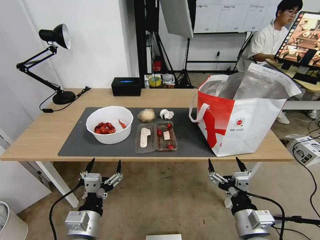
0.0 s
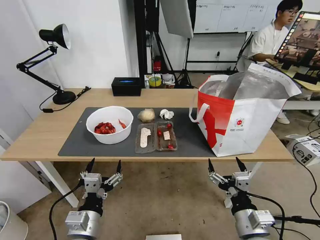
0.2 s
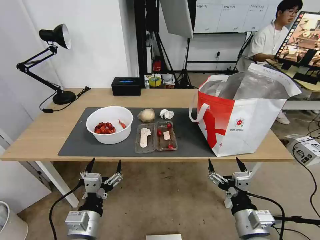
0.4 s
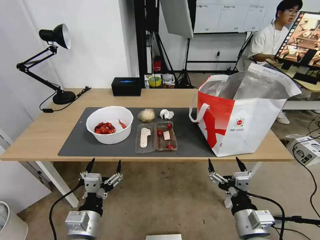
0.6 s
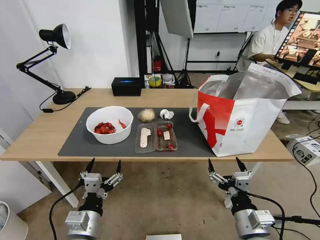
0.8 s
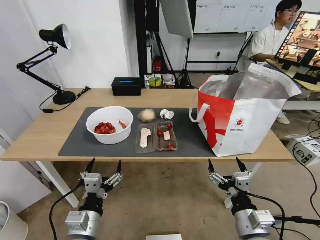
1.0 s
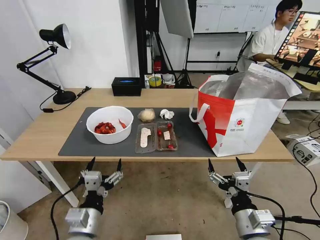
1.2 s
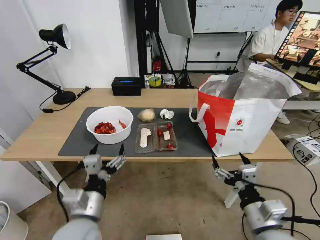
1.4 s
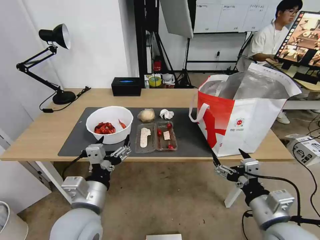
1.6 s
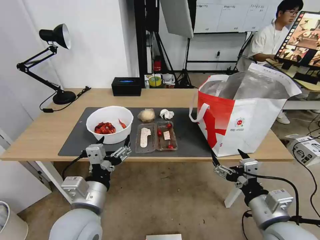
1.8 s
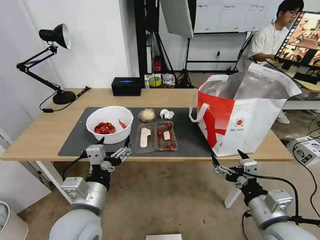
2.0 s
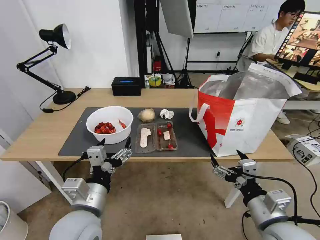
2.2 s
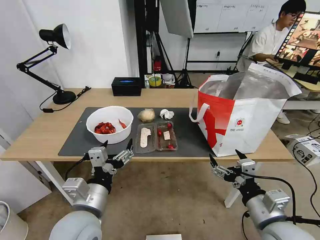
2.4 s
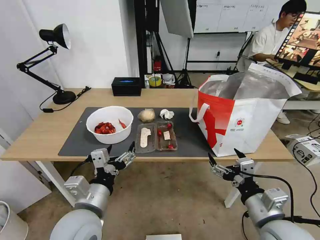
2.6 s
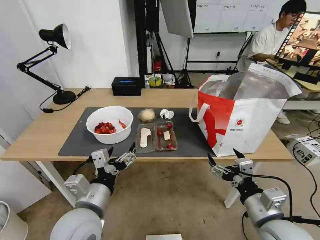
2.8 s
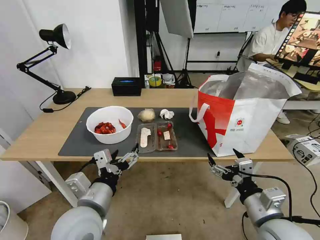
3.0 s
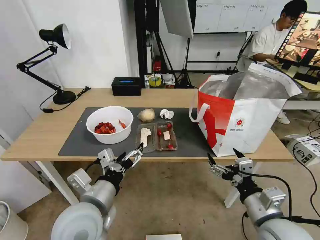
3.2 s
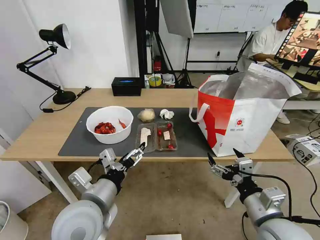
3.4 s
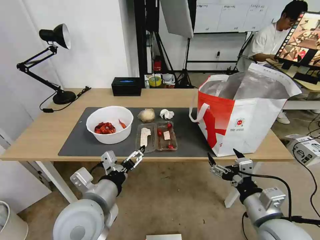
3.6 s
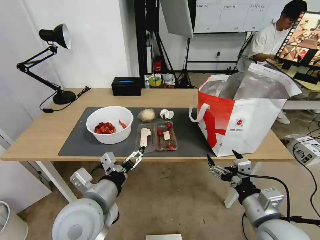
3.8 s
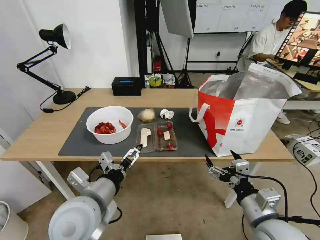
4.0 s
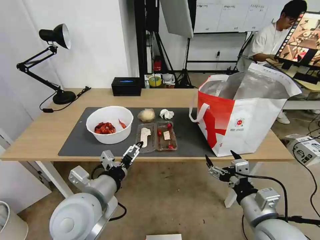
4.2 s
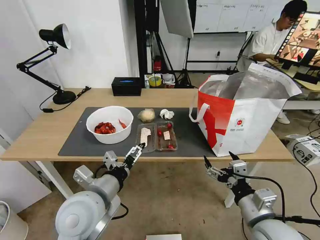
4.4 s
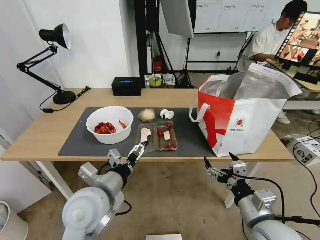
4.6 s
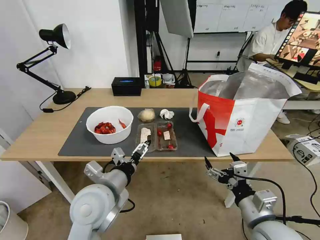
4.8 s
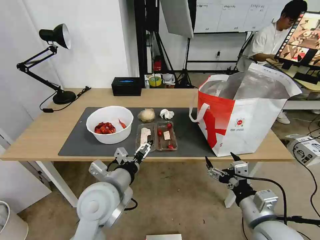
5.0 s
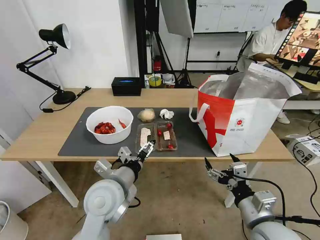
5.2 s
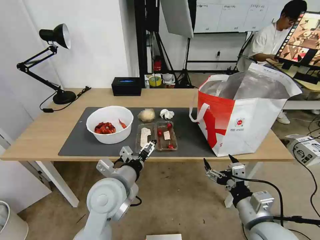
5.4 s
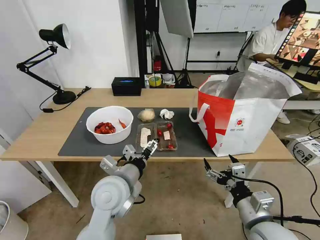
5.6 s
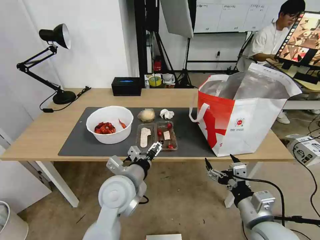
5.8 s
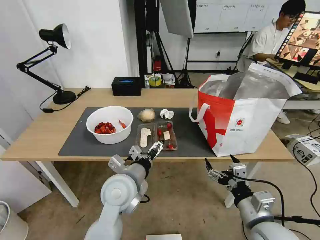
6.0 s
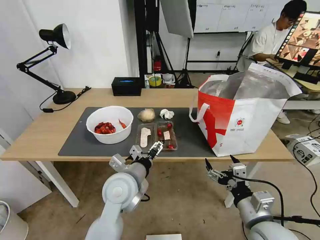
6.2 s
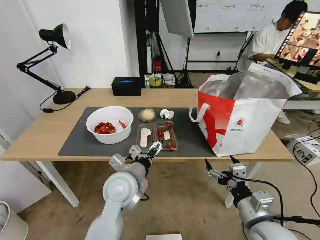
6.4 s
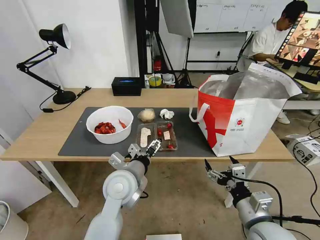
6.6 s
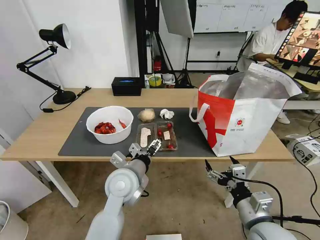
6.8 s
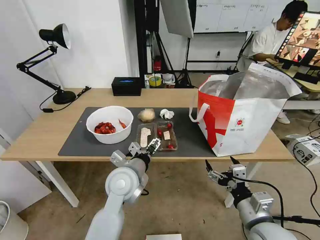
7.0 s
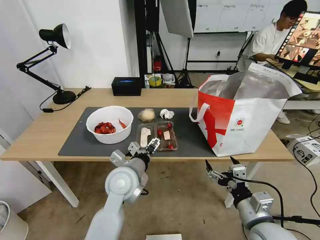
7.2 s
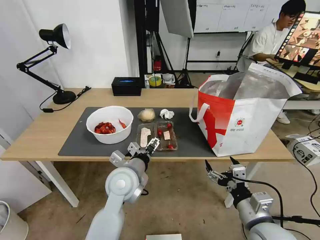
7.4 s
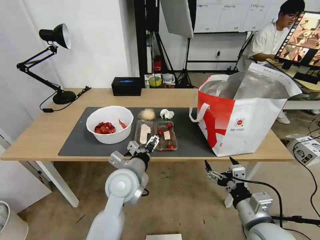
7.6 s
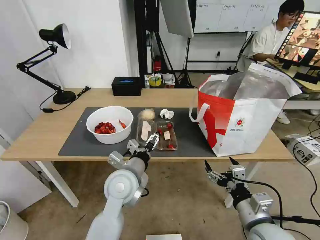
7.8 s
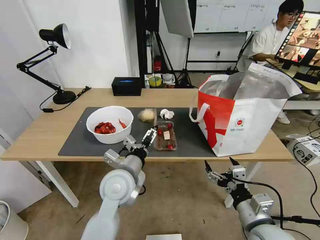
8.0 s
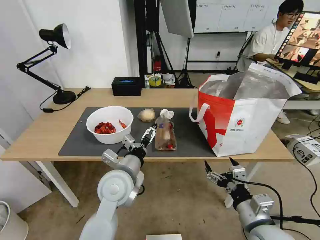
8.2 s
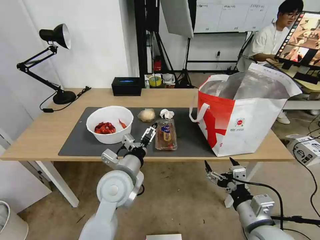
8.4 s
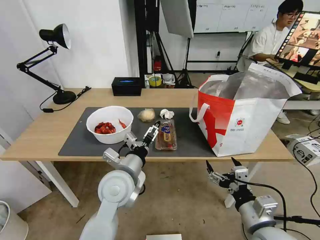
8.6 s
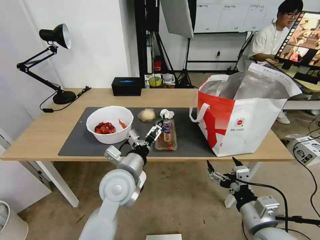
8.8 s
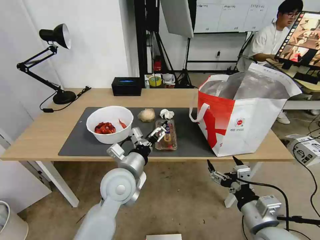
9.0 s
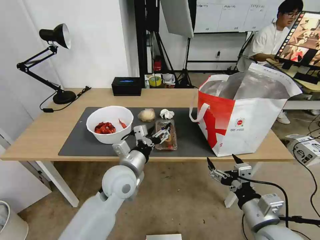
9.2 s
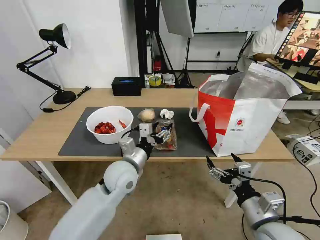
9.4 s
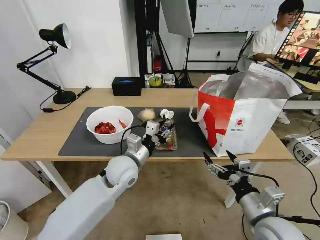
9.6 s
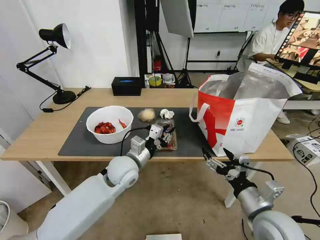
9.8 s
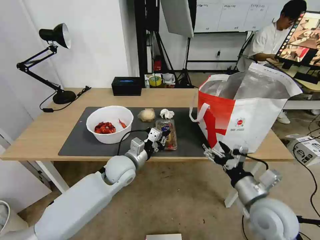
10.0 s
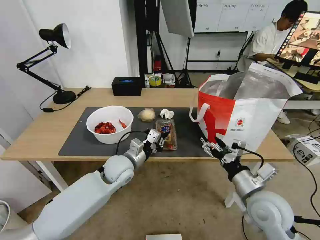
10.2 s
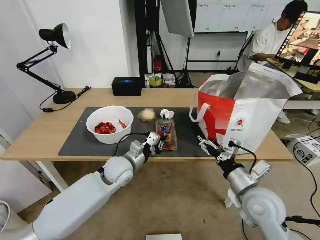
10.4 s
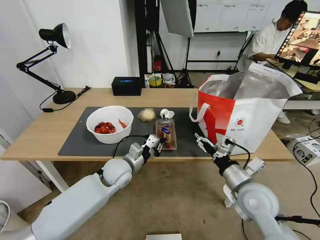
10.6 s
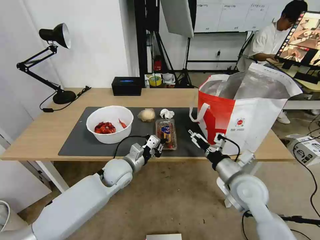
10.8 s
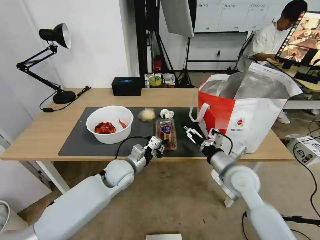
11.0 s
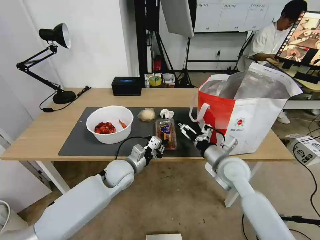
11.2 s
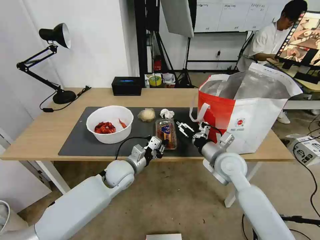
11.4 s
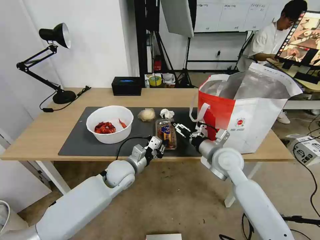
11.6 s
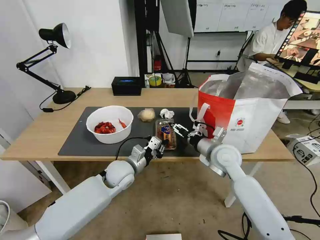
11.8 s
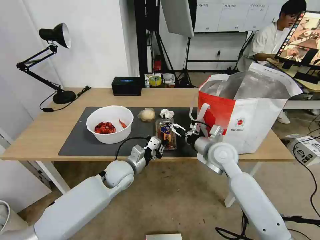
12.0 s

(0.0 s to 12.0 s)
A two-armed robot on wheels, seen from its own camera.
Task of the whole recording: Pick up the trash from the table and place it into the takeout bag.
4.4 s - 6.0 s: The left gripper goes some 10 cm forward and to the right.
6.0 s - 7.6 s: The grippers make only small movements.
9.0 s - 10.4 s: The right gripper is displaced forward by approximately 10 cm, while the left gripper goes roughly 10 cm forward and downward, and closes up.
10.4 s - 12.0 s: The right gripper is displaced forward and to the left by approximately 15 cm.

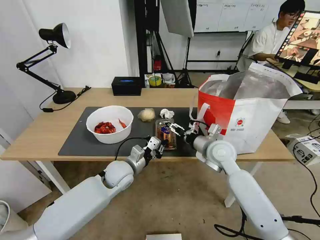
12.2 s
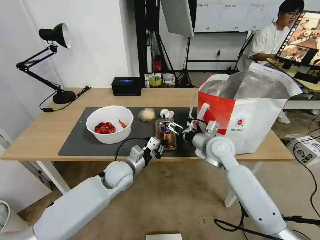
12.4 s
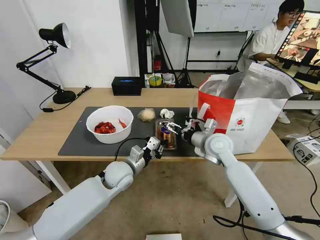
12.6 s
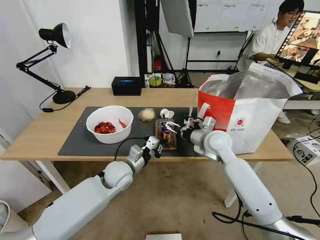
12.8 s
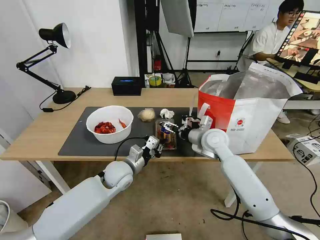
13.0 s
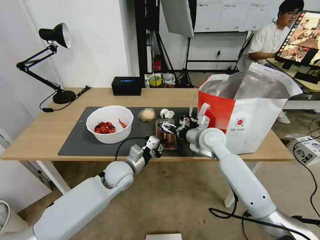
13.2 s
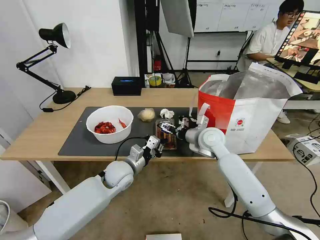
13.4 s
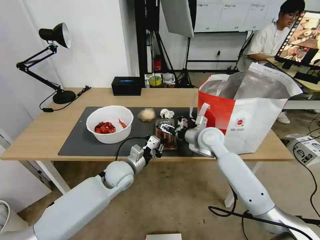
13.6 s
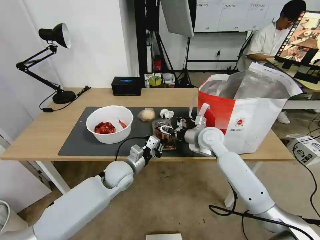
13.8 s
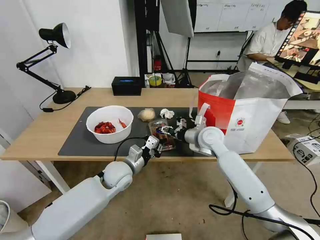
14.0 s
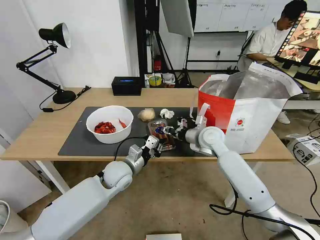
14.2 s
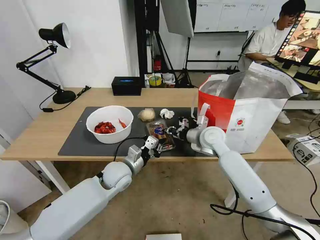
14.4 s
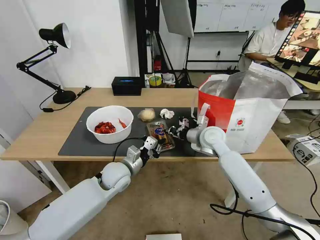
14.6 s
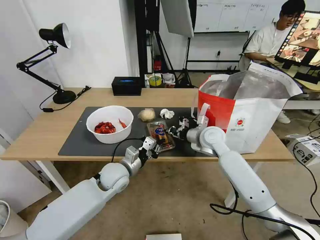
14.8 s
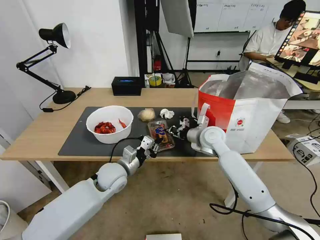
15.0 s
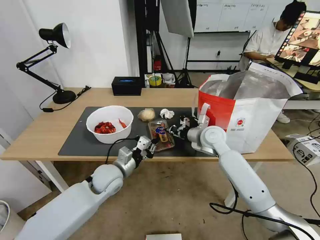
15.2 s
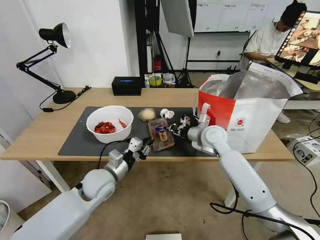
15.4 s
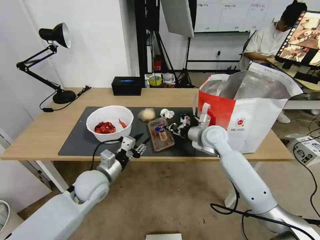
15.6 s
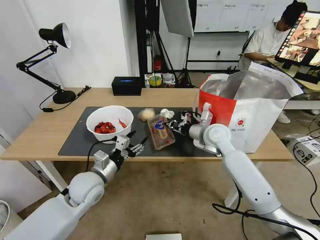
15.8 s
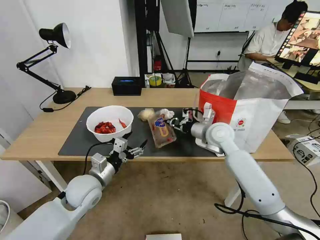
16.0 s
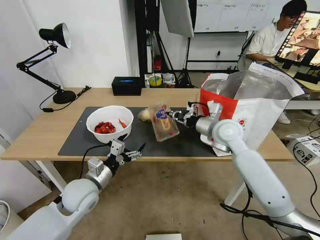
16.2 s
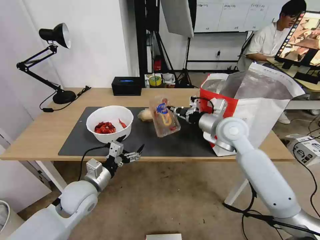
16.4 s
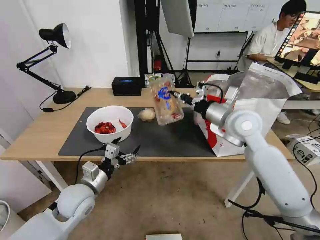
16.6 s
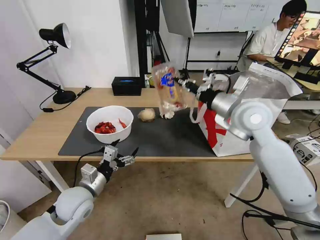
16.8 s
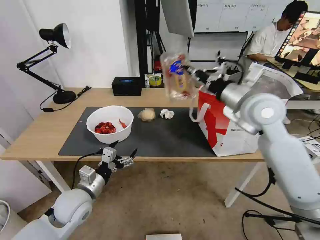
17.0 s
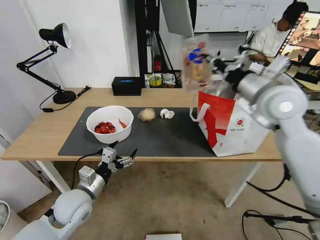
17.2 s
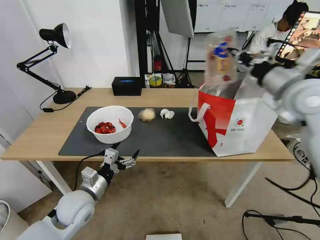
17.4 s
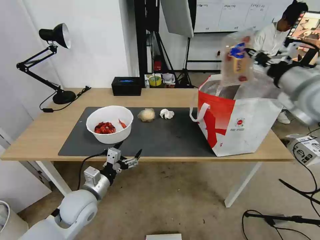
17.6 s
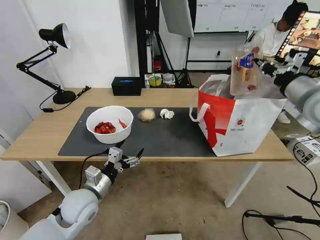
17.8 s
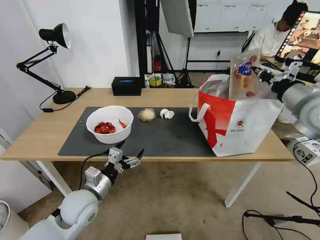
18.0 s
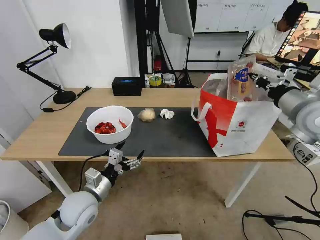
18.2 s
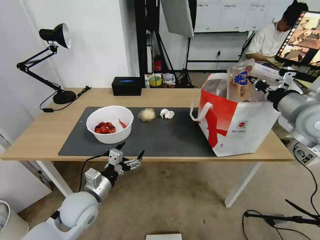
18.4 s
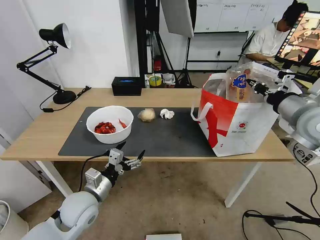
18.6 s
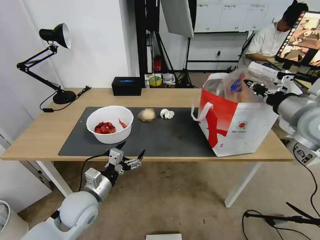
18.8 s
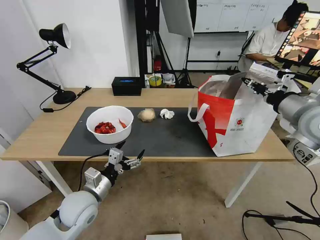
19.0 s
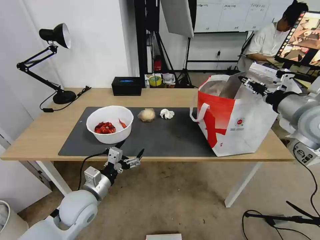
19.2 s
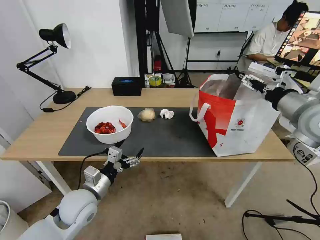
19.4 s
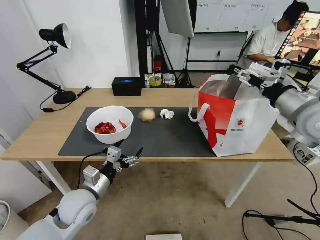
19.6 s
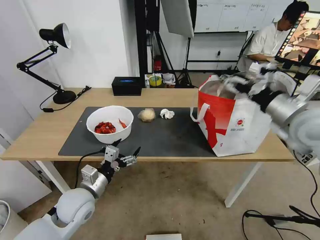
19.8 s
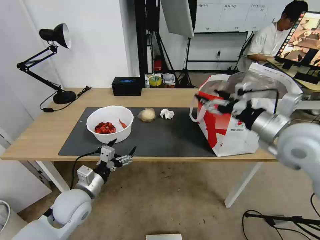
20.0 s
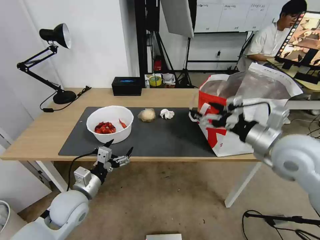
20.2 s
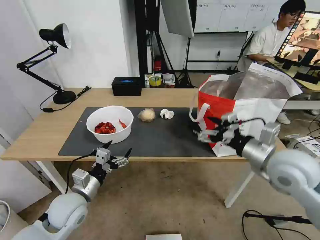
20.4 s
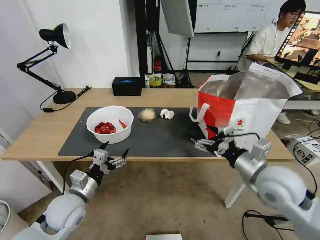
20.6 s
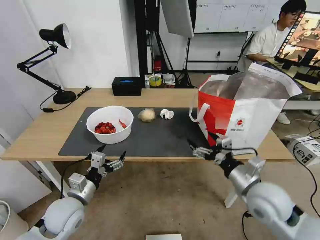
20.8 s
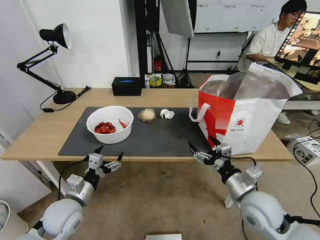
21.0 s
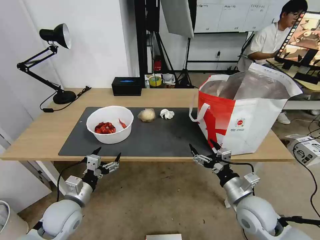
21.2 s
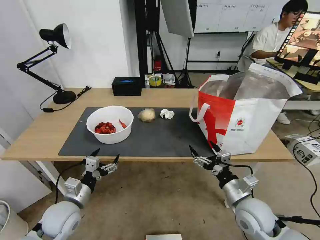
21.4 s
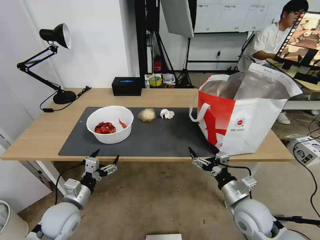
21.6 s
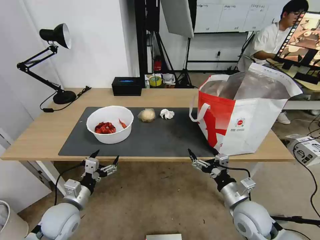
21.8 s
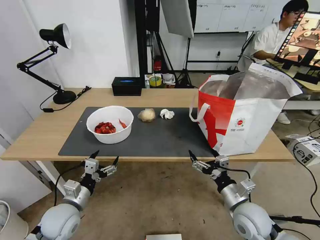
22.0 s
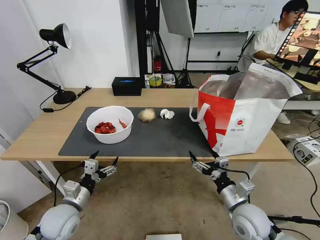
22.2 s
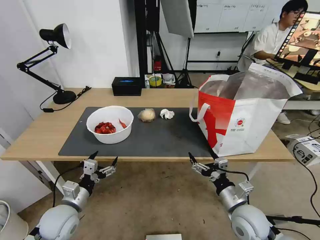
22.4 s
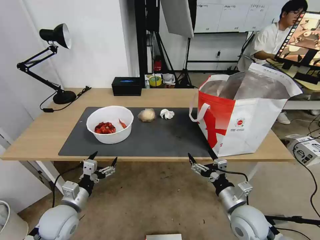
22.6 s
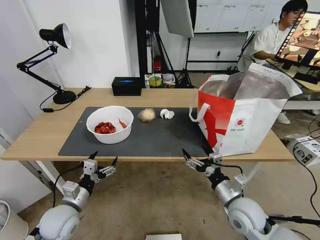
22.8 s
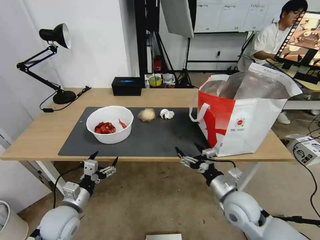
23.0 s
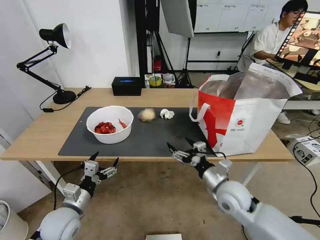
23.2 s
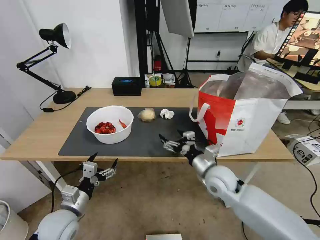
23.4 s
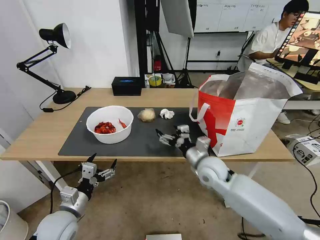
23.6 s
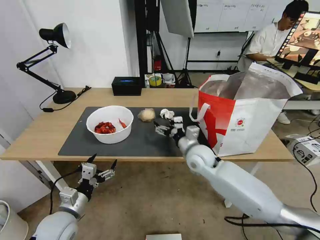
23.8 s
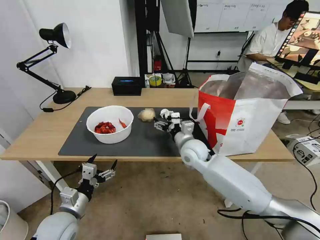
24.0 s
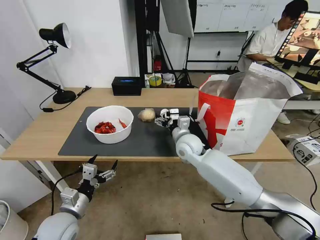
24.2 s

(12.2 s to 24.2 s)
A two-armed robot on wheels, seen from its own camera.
Task of the whole recording: Pick up the trash from the table and place it into the takeout bag.
12.2 s - 13.8 s: The right gripper travels forward by approximately 5 cm.
13.8 s - 15.2 s: The right gripper closes.
15.2 s - 16.6 s: The left gripper moves to the left and backward, roughly 10 cm, and opens its fingers. Meanwhile the right gripper is displaced upward and backward by approximately 15 cm.
16.6 s - 18.2 s: The right gripper shifts roughly 15 cm to the right.
18.2 s - 19.8 s: The right gripper ends up about 5 cm from where it was, and opens up.
19.8 s - 21.2 s: The right gripper shifts approximately 25 cm downward and backward; the left gripper shifts by about 5 cm.
21.2 s - 22.6 s: The grippers stay close to where they were, moving slightly.
22.6 s - 24.2 s: The right gripper travels forward and to the left by roughly 25 cm.
